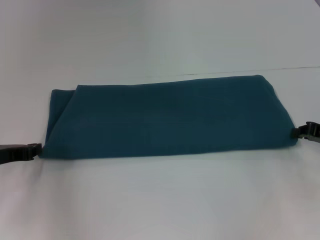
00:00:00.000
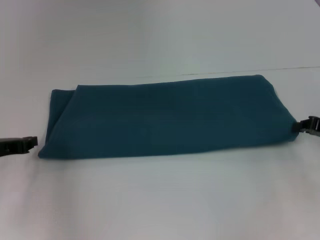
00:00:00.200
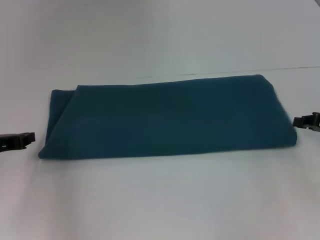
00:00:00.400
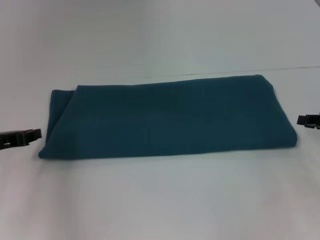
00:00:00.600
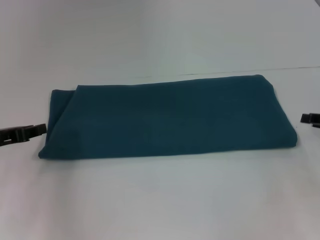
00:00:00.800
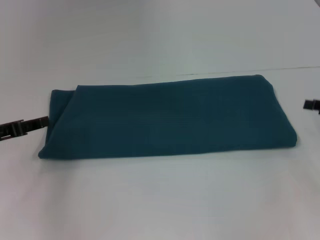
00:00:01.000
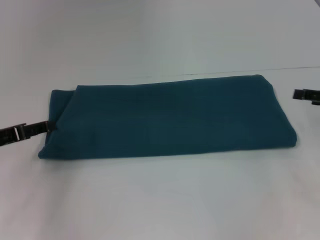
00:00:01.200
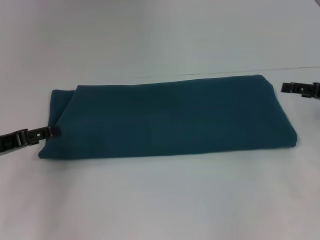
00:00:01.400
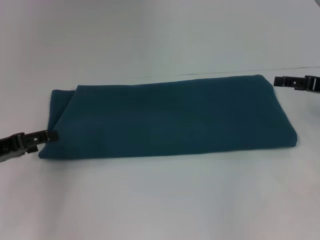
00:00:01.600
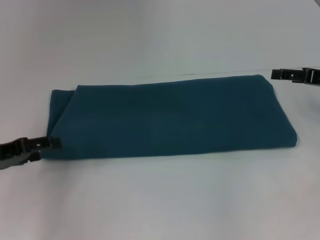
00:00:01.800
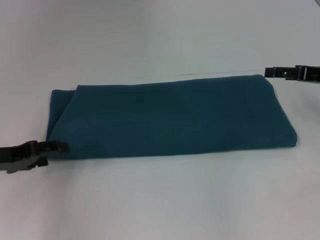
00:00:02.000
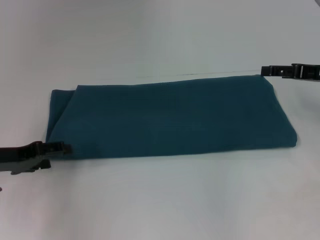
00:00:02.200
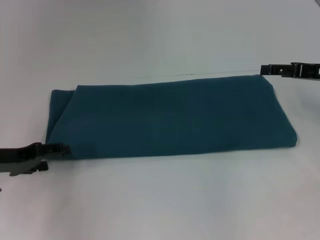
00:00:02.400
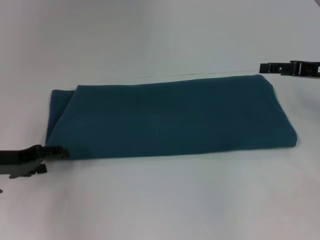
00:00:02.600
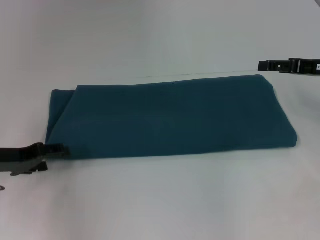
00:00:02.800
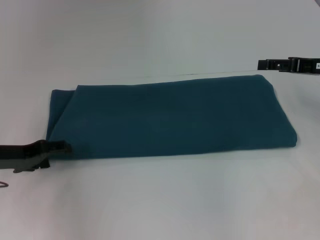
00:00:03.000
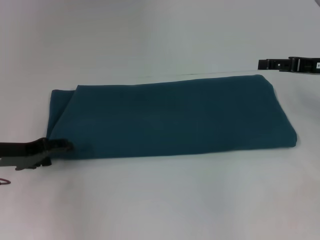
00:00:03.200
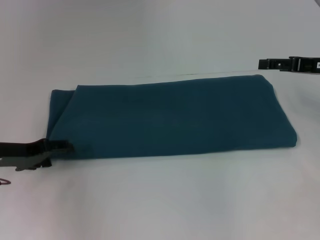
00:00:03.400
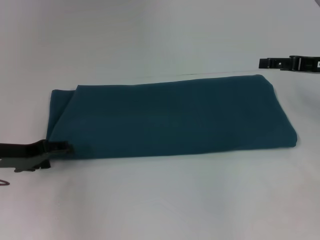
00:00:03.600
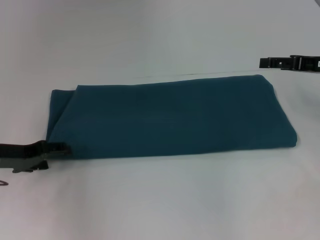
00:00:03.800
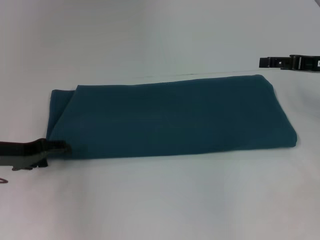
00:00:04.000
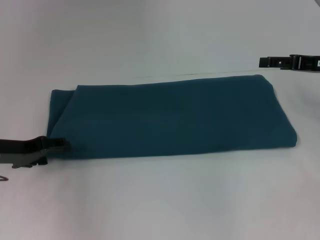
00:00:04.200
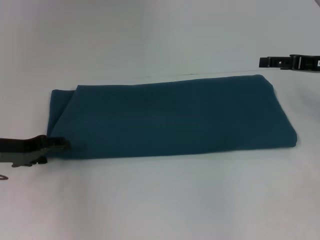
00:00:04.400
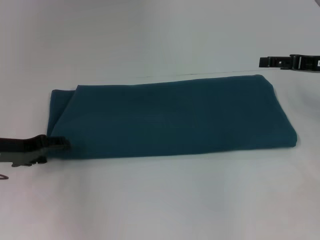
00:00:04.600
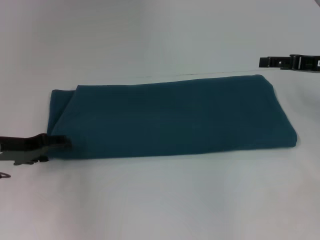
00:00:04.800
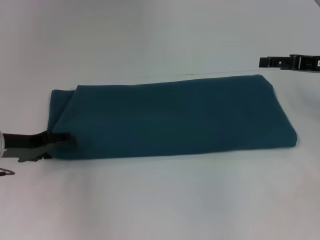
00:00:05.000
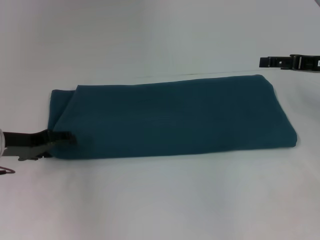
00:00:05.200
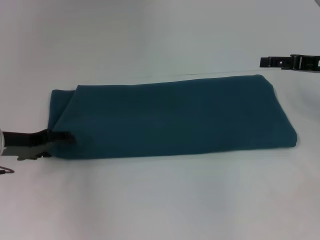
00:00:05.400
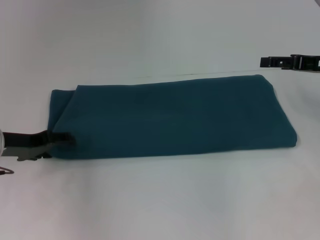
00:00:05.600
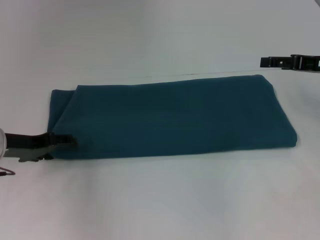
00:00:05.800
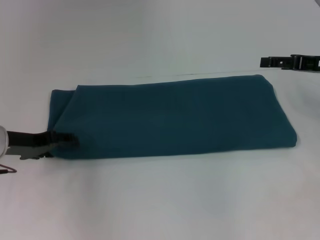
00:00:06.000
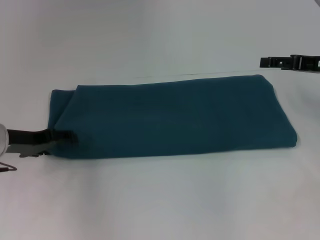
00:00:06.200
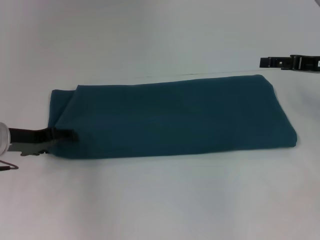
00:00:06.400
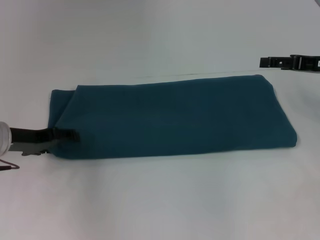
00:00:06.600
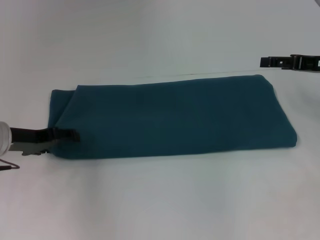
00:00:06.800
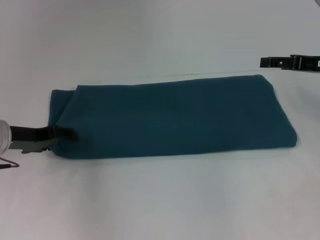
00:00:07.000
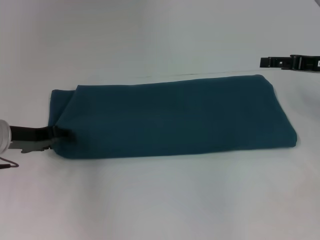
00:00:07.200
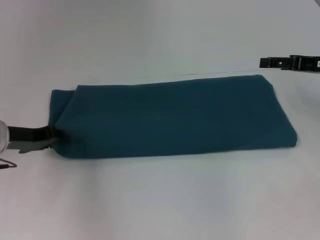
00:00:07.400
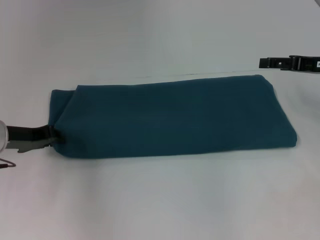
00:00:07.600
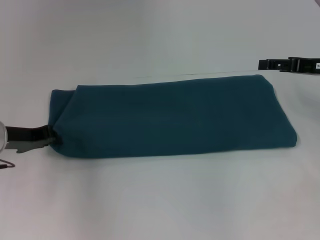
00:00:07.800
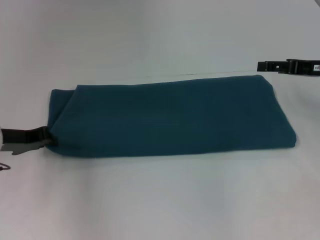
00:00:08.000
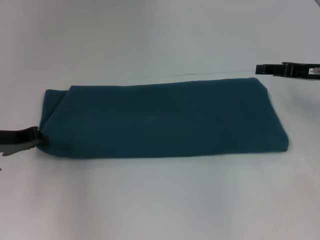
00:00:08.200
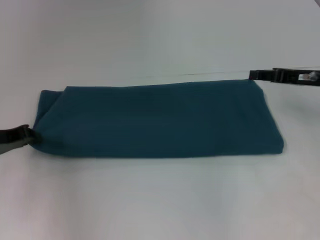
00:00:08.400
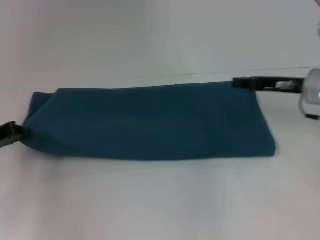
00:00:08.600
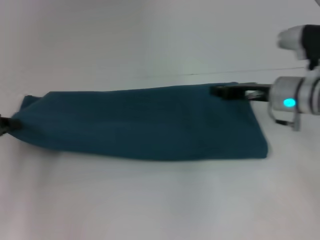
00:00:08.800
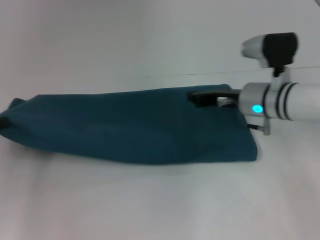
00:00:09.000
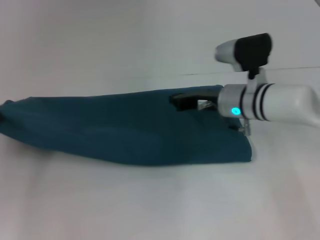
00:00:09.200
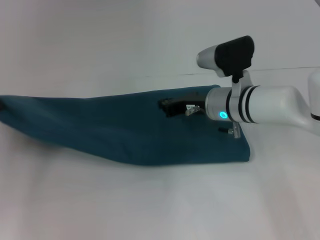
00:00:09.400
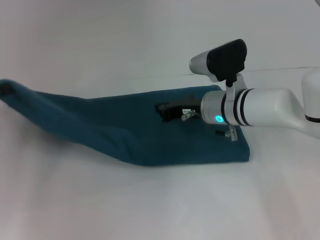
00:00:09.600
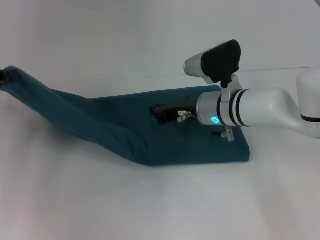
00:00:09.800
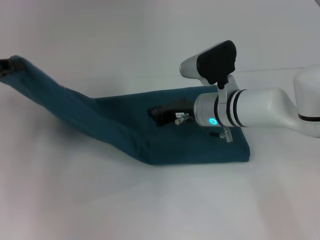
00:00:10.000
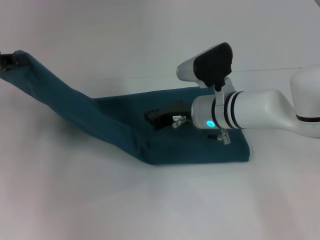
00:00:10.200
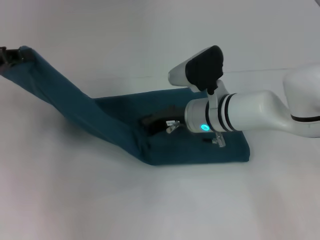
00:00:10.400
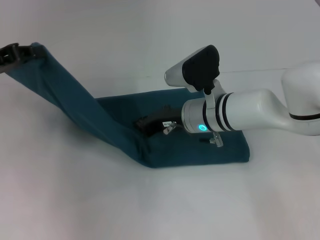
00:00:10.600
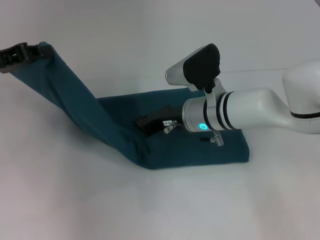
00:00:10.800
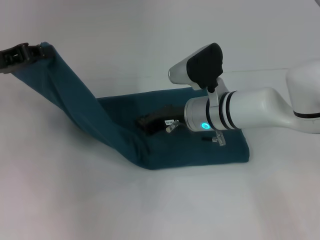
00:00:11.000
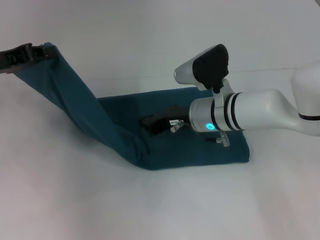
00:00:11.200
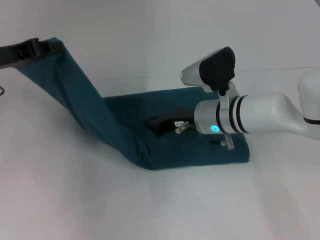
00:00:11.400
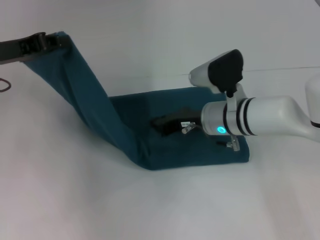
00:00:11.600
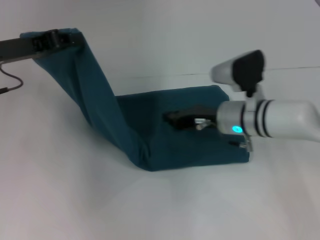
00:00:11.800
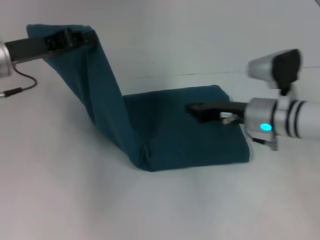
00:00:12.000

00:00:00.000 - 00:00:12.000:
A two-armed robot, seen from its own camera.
Step, 00:00:00.000 - 00:00:11.200: Press the middle of the clothes with your right hand.
00:00:00.000 - 00:00:01.600: The right gripper heads upward, covering some 5 cm, and opens; the left gripper opens up.
00:00:01.600 - 00:00:03.000: The left gripper changes place by some 5 cm.
00:00:03.000 - 00:00:04.400: The two grippers keep their place.
00:00:04.400 - 00:00:06.000: The grippers move only a little.
00:00:06.000 - 00:00:07.600: The left gripper closes.
00:00:07.600 - 00:00:09.000: The right gripper shifts some 15 cm to the left and downward, and closes its fingers. Meanwhile the left gripper shifts roughly 10 cm to the left, and closes its fingers.
00:00:09.000 - 00:00:10.400: The right gripper goes roughly 10 cm to the left, while the left gripper travels upward by roughly 5 cm.
00:00:10.400 - 00:00:12.000: Both grippers travel together to the right, some 10 cm.

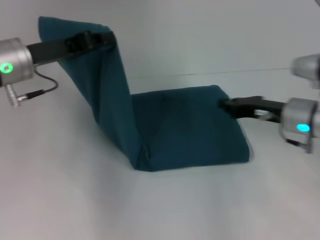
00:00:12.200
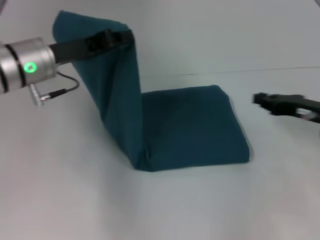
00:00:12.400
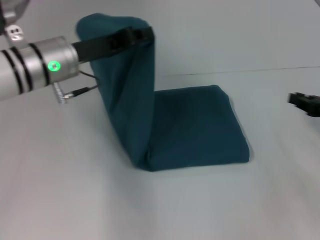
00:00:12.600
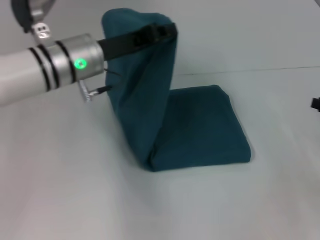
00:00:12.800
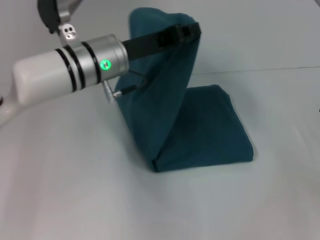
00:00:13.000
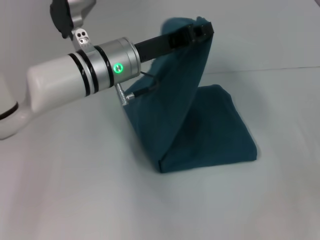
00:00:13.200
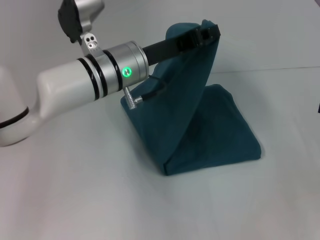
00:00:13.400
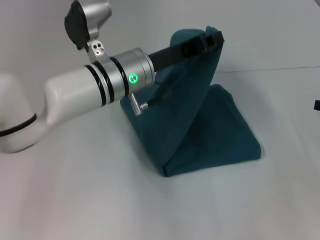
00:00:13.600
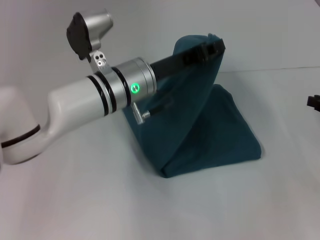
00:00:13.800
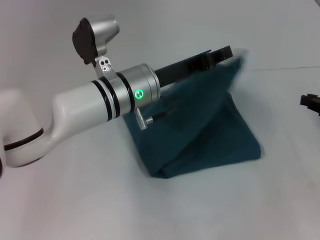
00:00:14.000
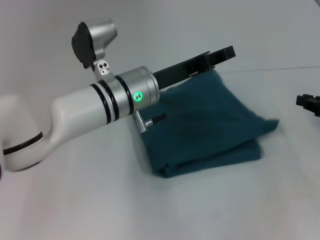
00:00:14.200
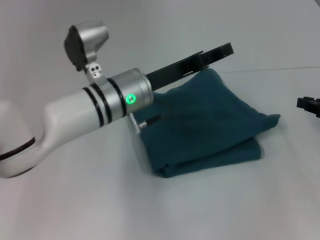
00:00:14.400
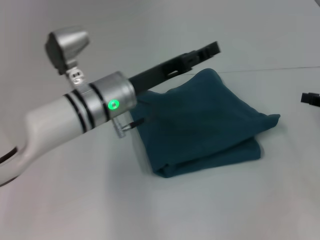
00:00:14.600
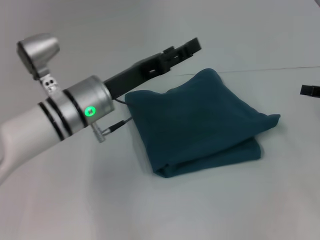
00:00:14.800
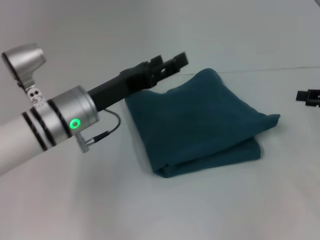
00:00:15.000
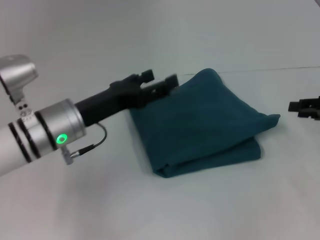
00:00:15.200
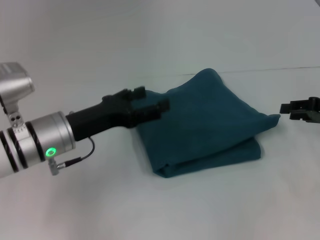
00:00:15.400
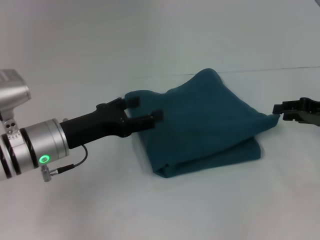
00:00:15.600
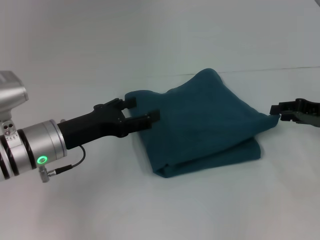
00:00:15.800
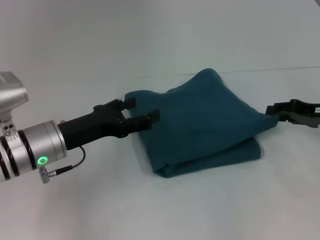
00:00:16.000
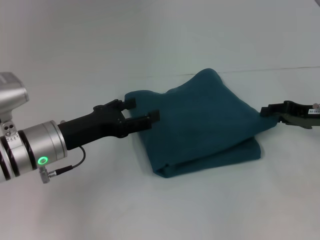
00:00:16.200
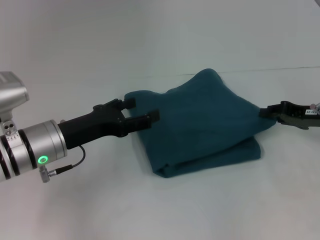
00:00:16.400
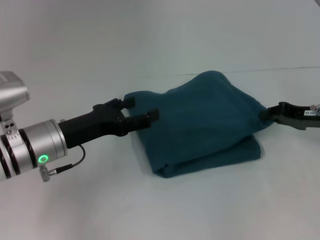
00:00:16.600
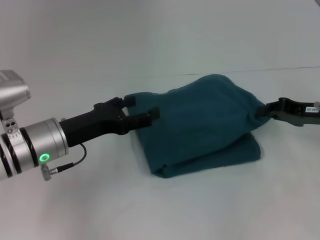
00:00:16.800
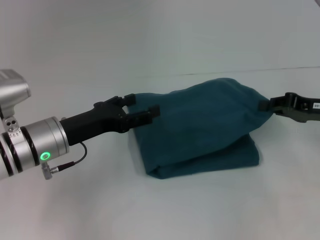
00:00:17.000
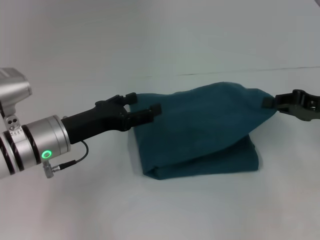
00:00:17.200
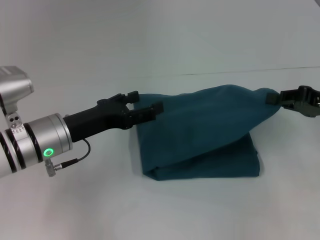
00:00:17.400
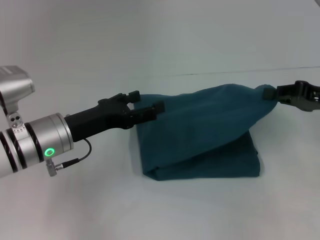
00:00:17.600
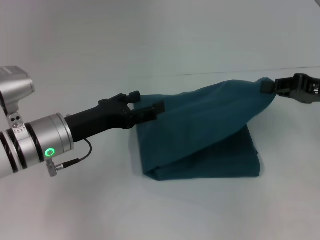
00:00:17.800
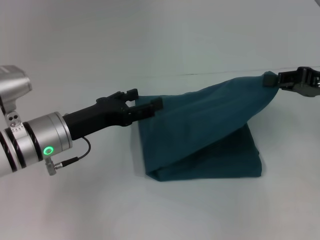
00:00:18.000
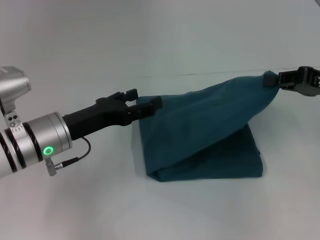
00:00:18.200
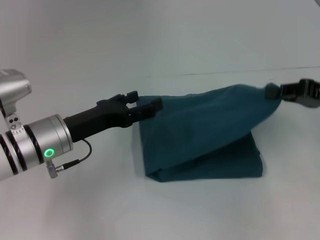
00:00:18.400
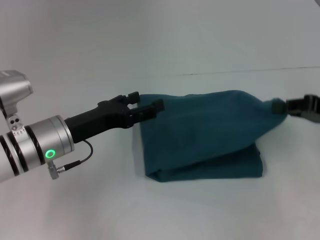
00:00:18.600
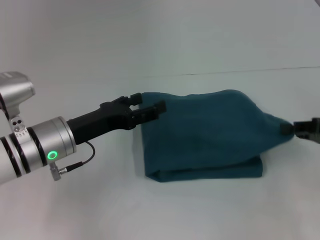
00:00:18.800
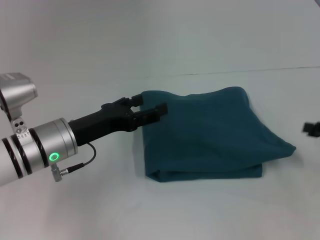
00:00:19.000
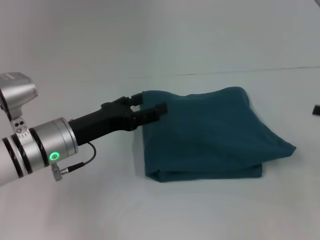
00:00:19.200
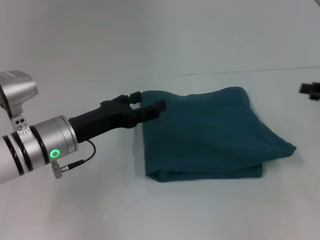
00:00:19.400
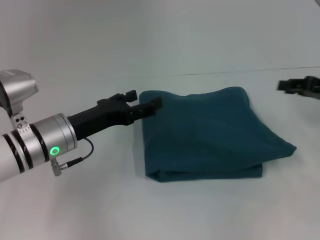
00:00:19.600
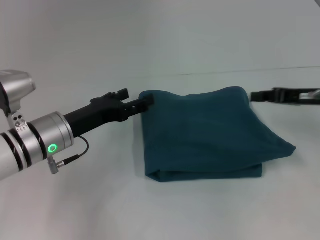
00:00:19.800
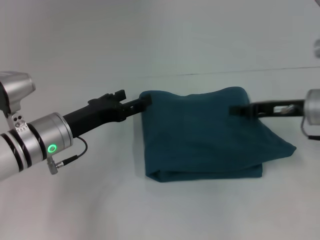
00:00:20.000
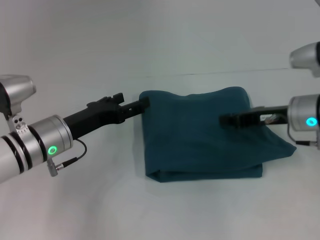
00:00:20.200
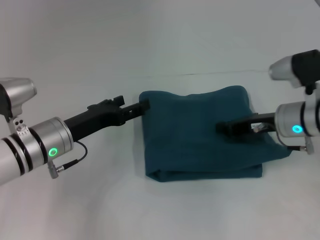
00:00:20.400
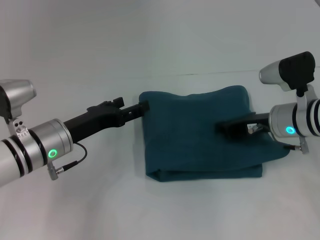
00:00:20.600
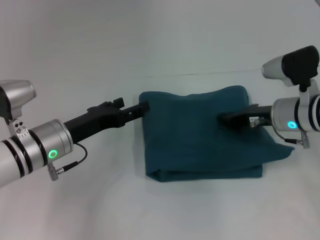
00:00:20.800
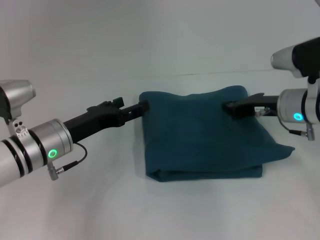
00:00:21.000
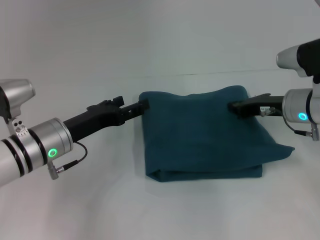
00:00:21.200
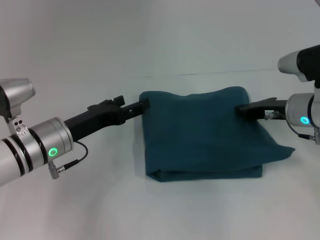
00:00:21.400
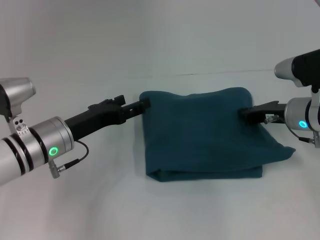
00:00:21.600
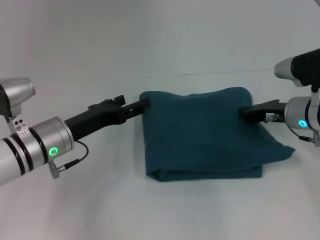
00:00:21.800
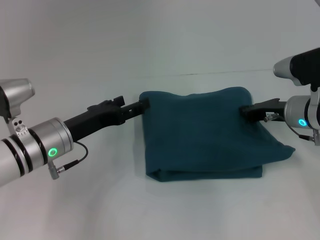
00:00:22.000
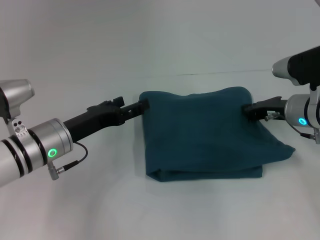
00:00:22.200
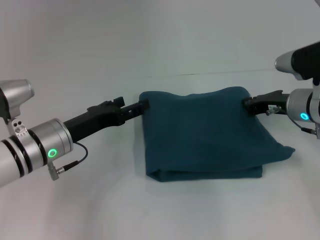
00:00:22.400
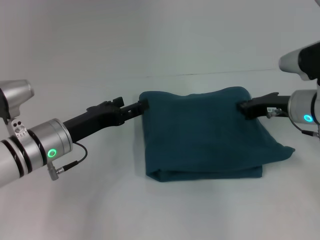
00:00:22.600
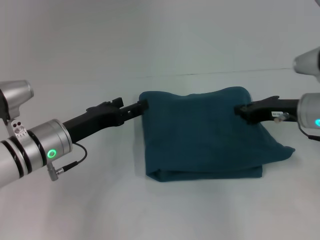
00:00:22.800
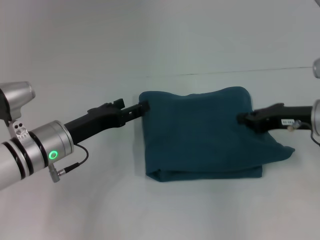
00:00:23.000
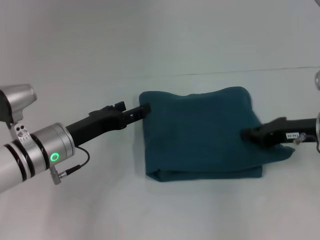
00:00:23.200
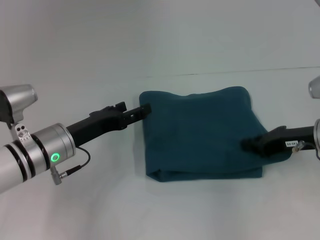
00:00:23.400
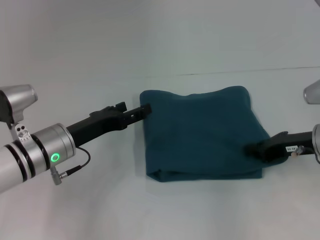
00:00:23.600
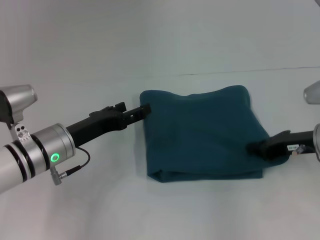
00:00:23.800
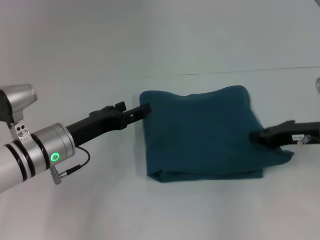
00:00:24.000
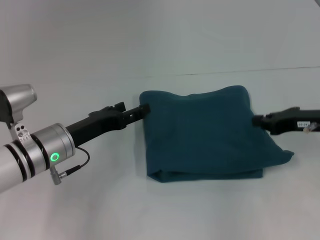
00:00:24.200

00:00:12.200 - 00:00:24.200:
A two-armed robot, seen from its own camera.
Step, 00:00:12.200 - 00:00:14.200: Fold the clothes to the left.
00:00:12.200 - 00:00:13.800: Both grippers travel together to the right, some 15 cm.
00:00:13.800 - 00:00:15.200: The left gripper heads to the left, covering roughly 10 cm, and opens.
00:00:15.200 - 00:00:16.600: The right gripper shifts some 5 cm to the left.
00:00:16.600 - 00:00:18.200: The right gripper travels upward by roughly 10 cm.
00:00:18.200 - 00:00:19.800: The right gripper moves roughly 5 cm to the right and comes back, and opens.
00:00:19.800 - 00:00:21.200: The right gripper travels to the left by approximately 5 cm, and closes up.
00:00:21.200 - 00:00:22.600: There are only small adjustments of the grippers.
00:00:22.600 - 00:00:24.200: The right gripper moves roughly 5 cm.
